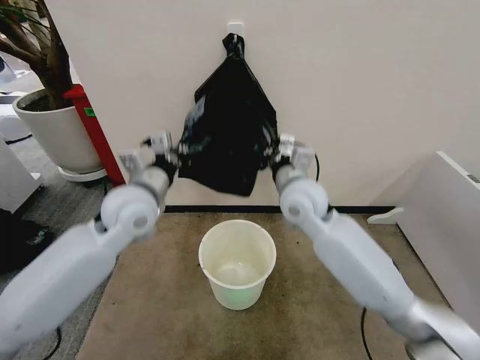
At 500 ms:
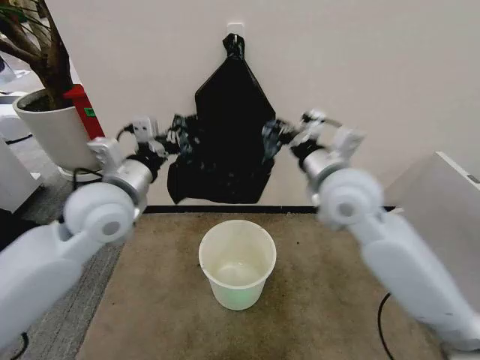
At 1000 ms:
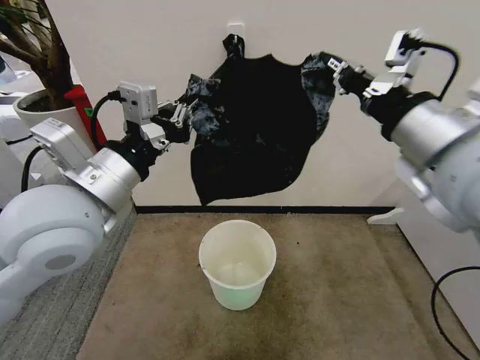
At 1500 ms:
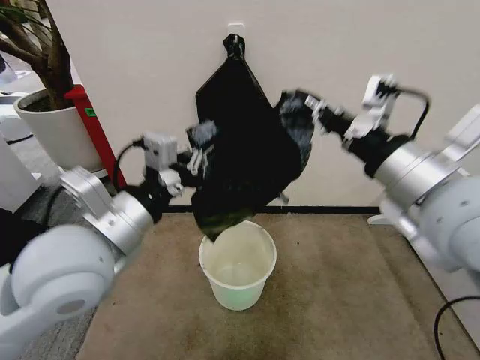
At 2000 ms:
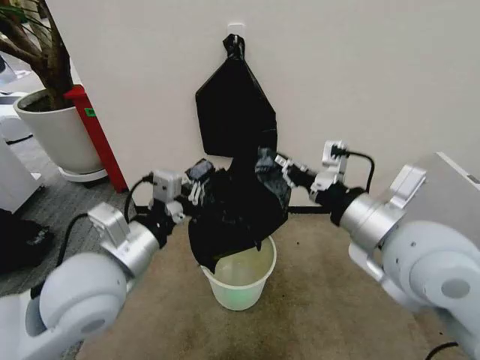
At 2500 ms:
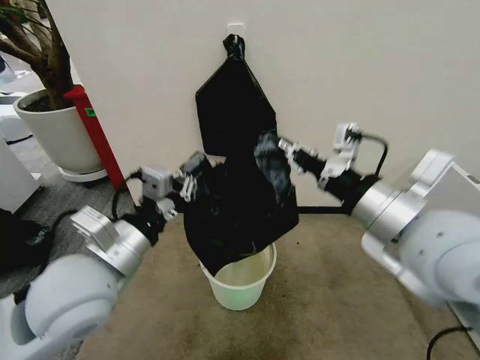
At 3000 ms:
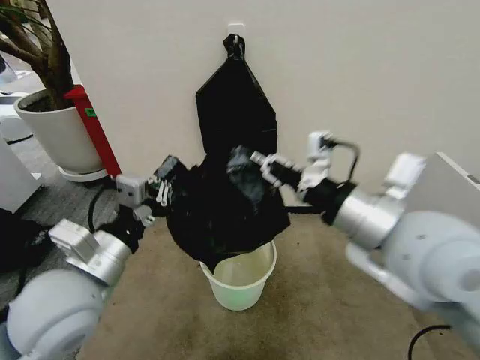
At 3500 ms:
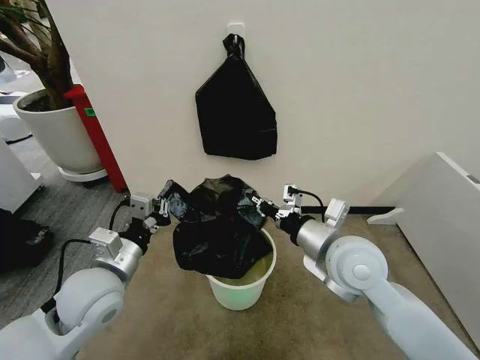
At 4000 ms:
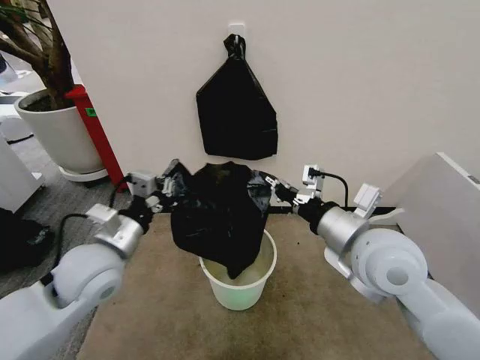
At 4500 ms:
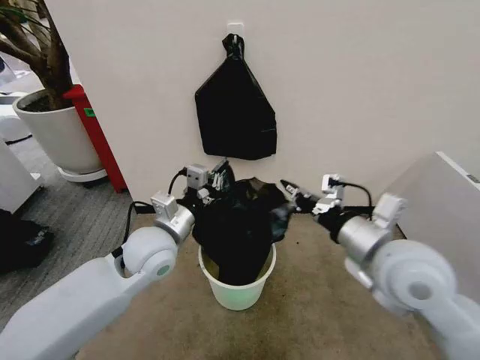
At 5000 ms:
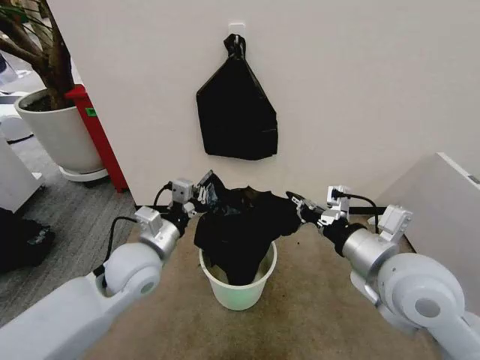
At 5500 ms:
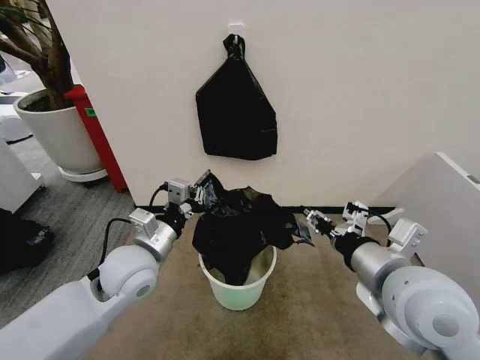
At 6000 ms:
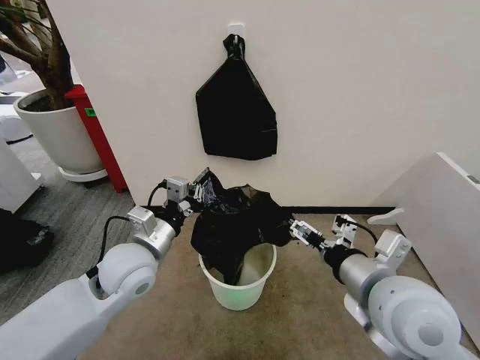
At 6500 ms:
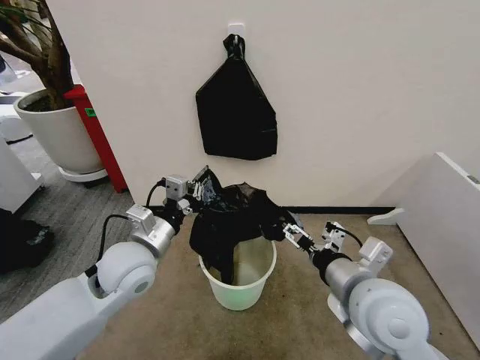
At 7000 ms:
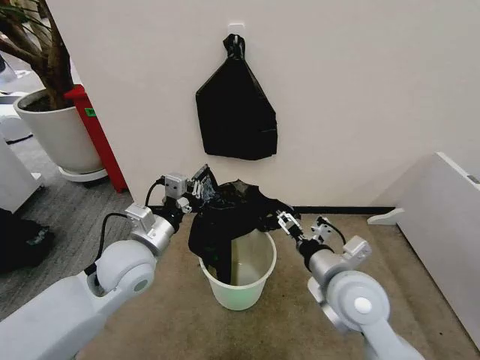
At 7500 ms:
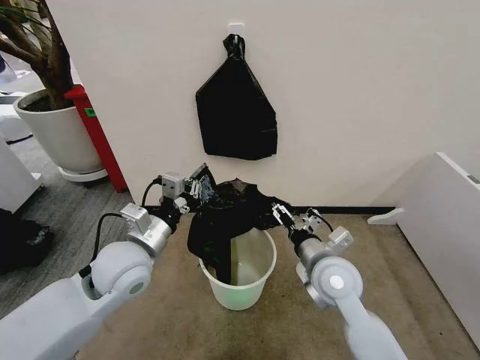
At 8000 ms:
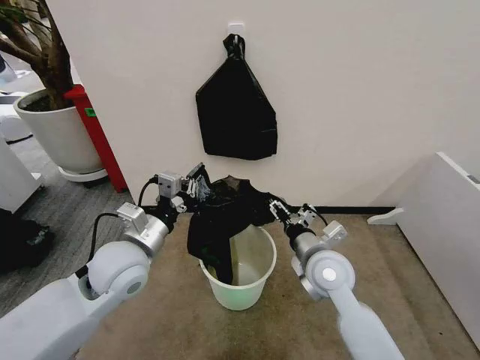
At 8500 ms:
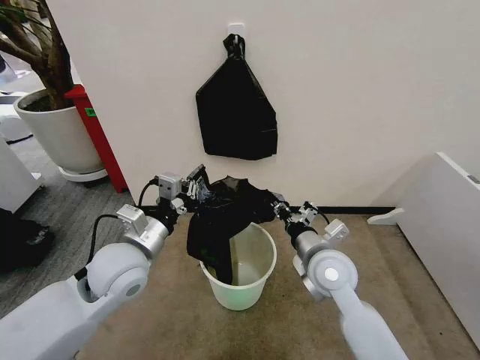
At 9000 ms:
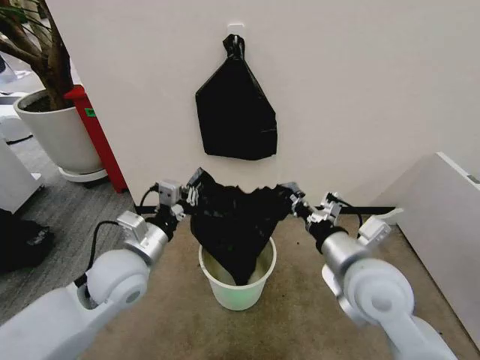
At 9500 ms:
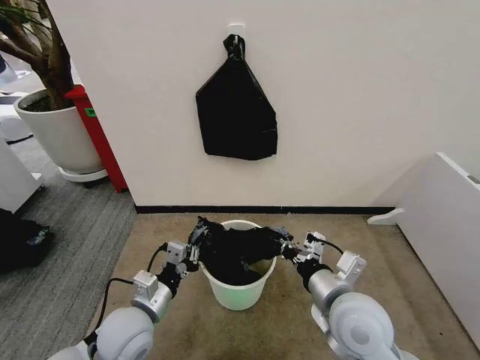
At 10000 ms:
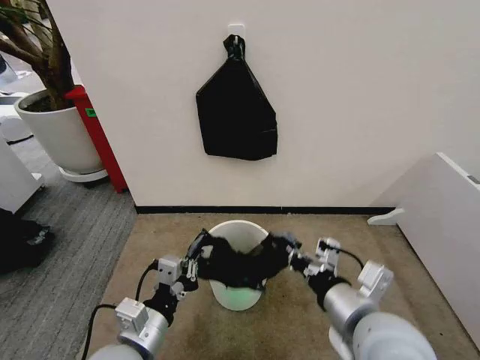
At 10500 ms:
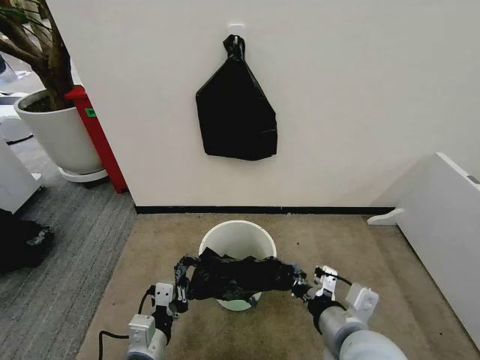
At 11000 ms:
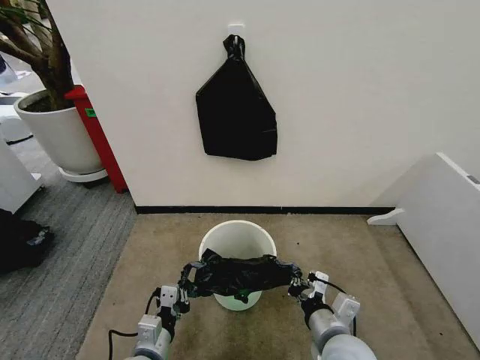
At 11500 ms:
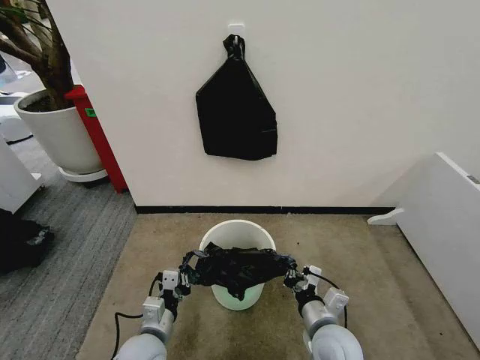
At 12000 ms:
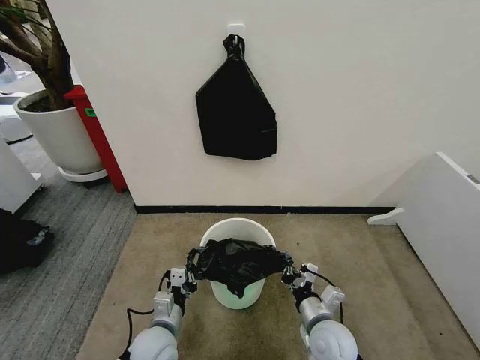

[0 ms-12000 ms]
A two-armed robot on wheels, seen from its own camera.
Task of the whole recording: Place the garbage bag over the trash bin.
0 ms to 2000 ms: The left gripper travels backward by about 15 cm. Meanwhile the right gripper moves backward, to the right and upward, roughly 25 cm.
2000 ms to 4000 ms: The right gripper travels downward by about 5 cm; the left gripper moves forward and downward, approximately 10 cm.
4000 ms to 6000 ms: The right gripper heads backward, covering some 5 cm, and opens its fingers.
6000 ms to 8000 ms: The right gripper heads downward and forward, covering approximately 15 cm.
8000 ms to 10000 ms: The right gripper shifts some 15 cm backward and upward, and closes up. Meanwhile the left gripper travels backward and downward by approximately 15 cm.
10000 ms to 12000 ms: The right gripper heads downward, covering approximately 20 cm, while the left gripper heads downward and forward, covering about 15 cm.

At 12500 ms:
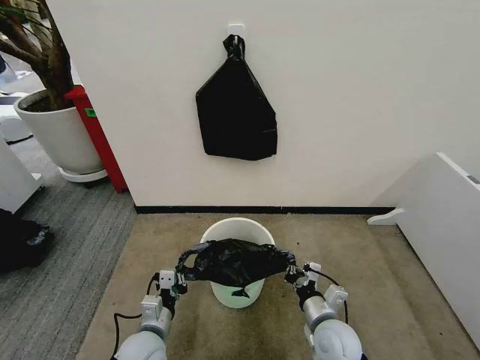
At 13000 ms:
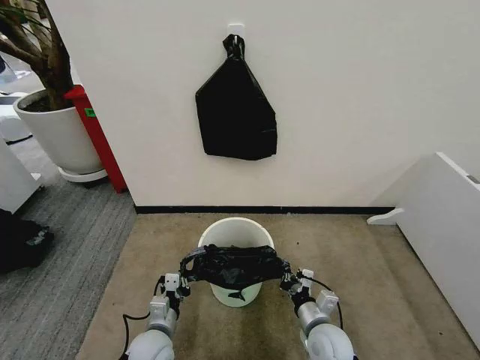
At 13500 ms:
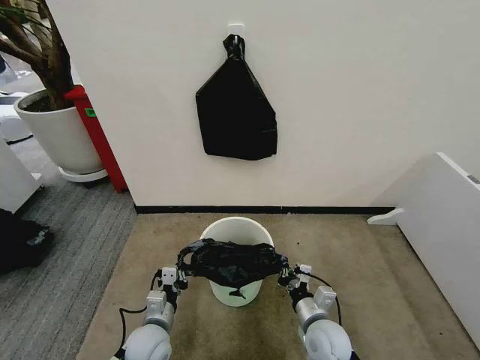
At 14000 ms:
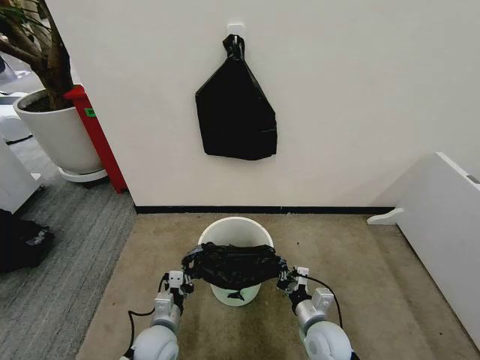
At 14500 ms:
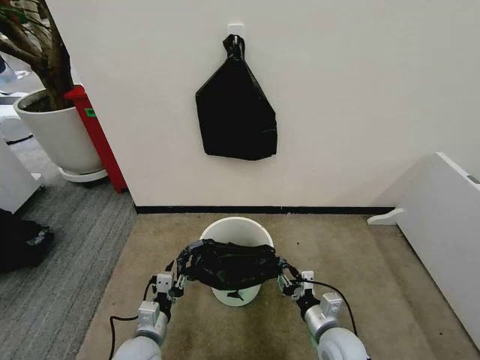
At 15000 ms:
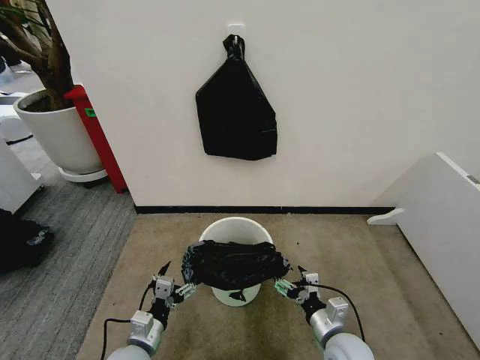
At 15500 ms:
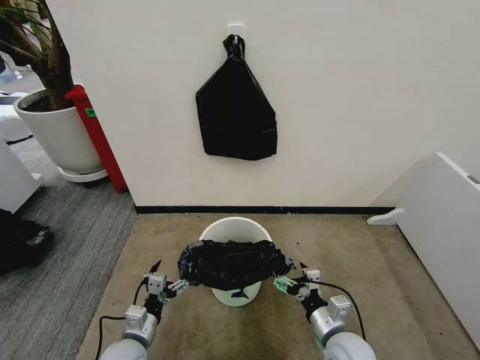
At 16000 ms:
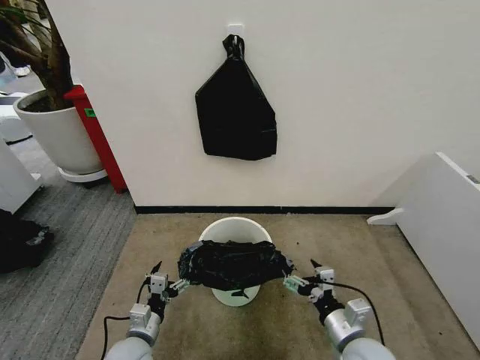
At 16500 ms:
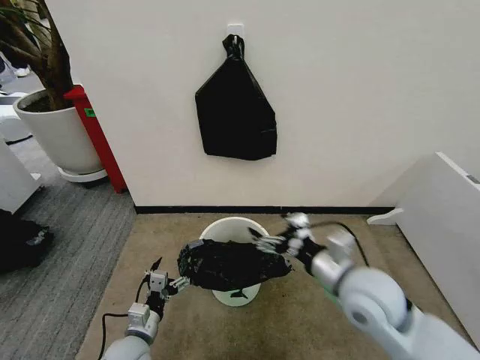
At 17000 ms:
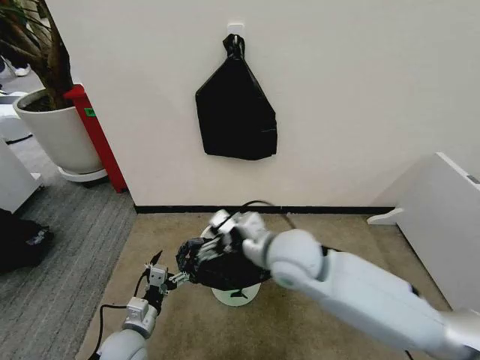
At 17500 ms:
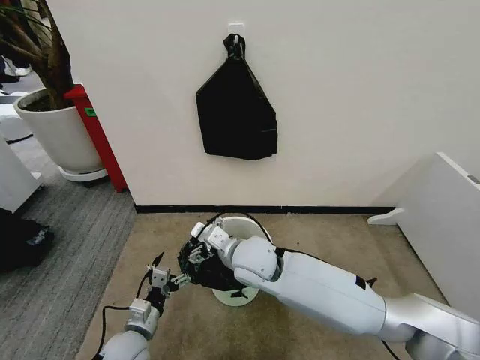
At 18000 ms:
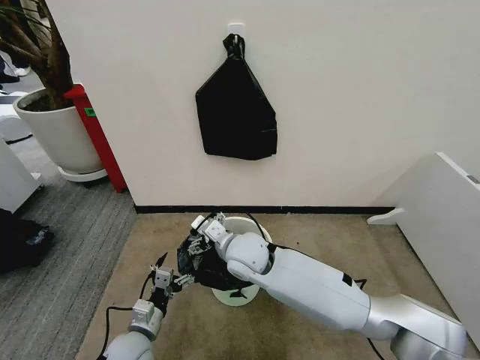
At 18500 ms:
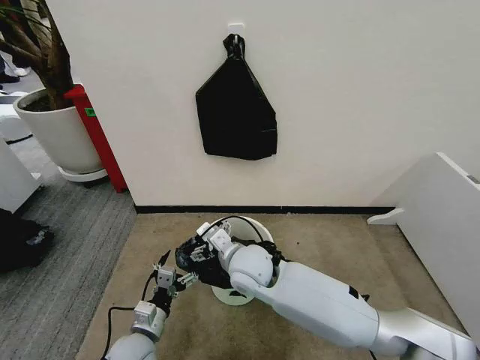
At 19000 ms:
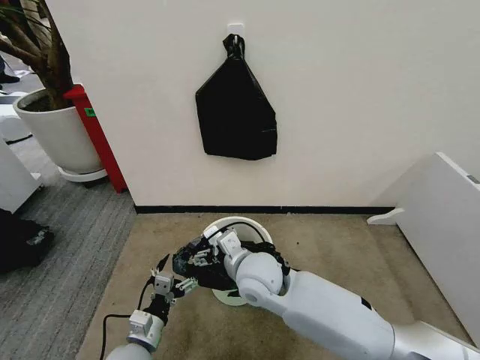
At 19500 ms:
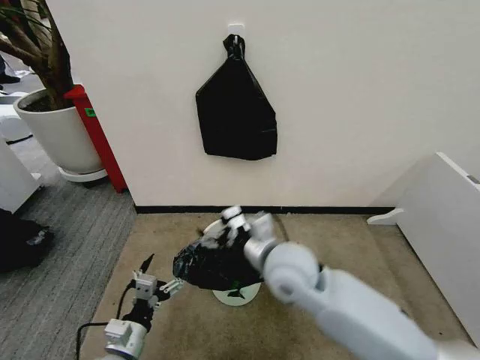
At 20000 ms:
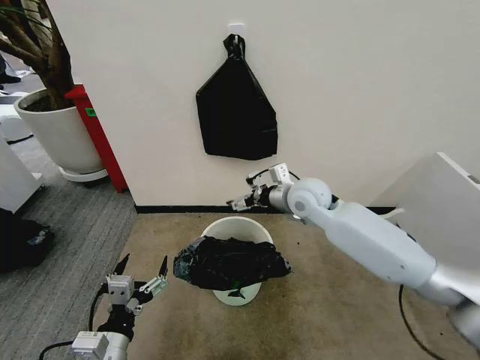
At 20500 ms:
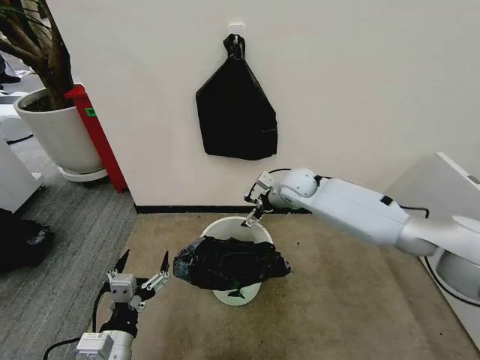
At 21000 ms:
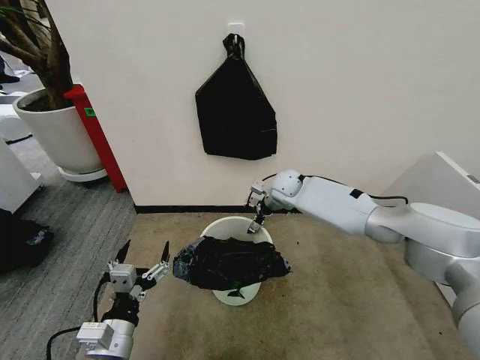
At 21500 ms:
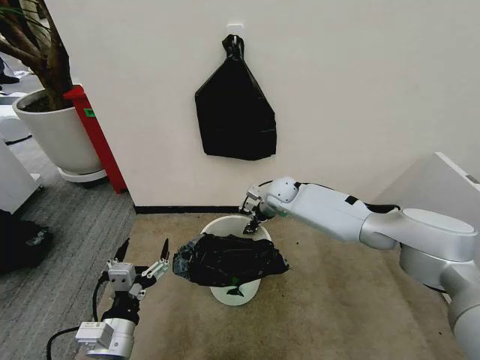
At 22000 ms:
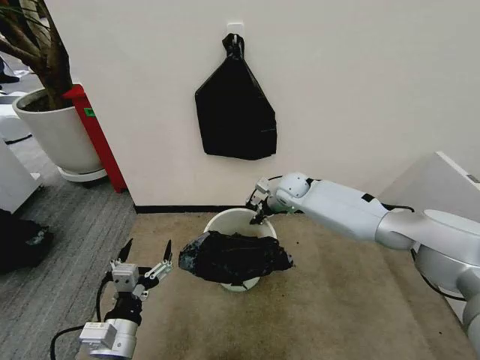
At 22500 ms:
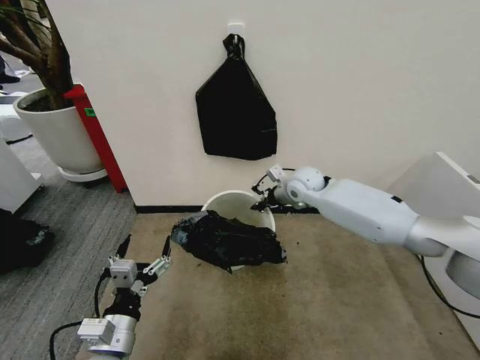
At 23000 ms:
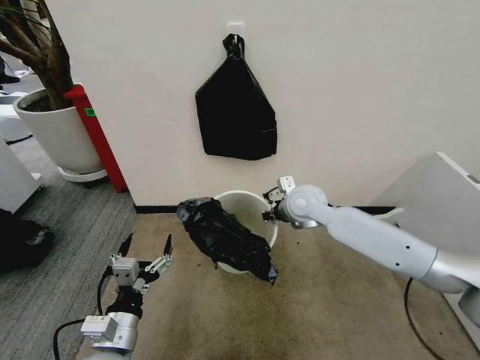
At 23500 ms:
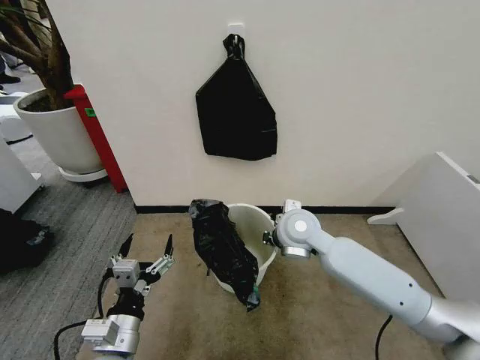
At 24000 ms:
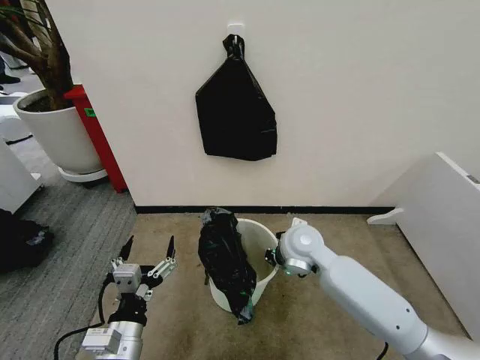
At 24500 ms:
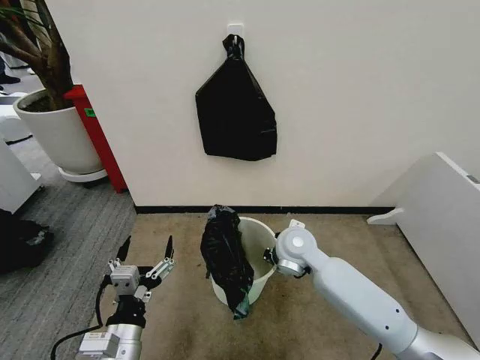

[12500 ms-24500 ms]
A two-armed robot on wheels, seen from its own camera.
Task of the whole recording: Place the garbage bag over the trash bin.
12500 ms to 14500 ms: The left gripper opens, while the right gripper opens up.
14500 ms to 16500 ms: The left gripper opens up. Meanwhile the right gripper is displaced upward by roughly 20 cm, and opens up.
16500 ms to 18500 ms: The right gripper goes roughly 20 cm to the left.
18500 ms to 20500 ms: The left gripper heads upward and backward, covering approximately 15 cm. Meanwhile the right gripper moves forward and to the right, roughly 25 cm.
20500 ms to 22500 ms: The right gripper closes up.
22500 ms to 24500 ms: The right gripper is displaced backward by some 15 cm.

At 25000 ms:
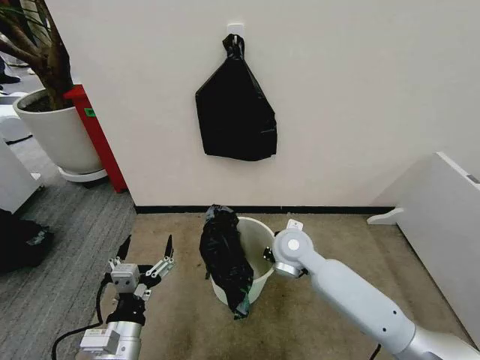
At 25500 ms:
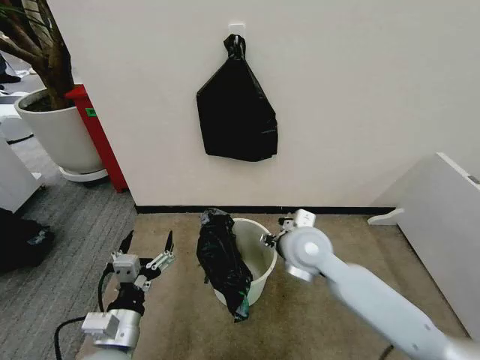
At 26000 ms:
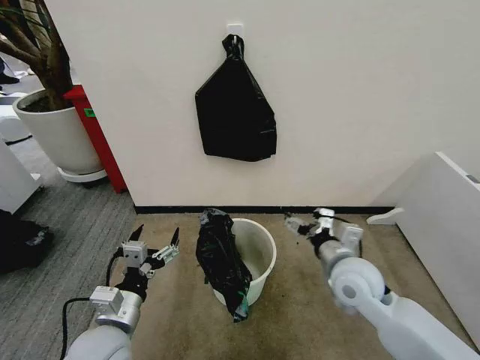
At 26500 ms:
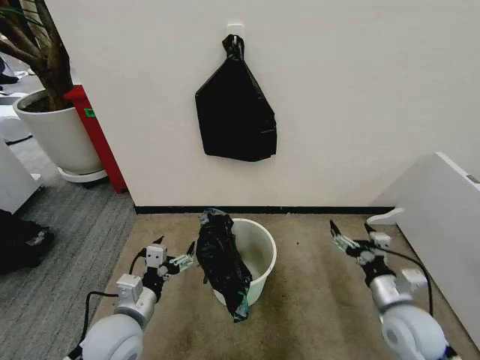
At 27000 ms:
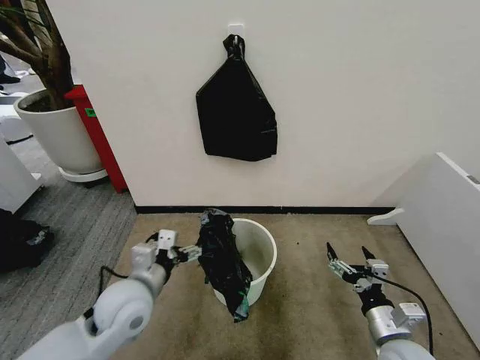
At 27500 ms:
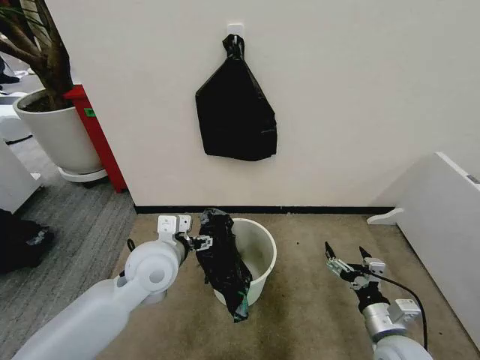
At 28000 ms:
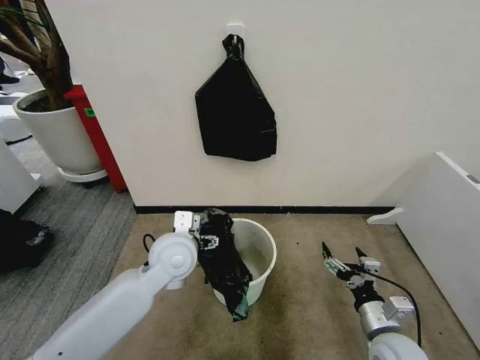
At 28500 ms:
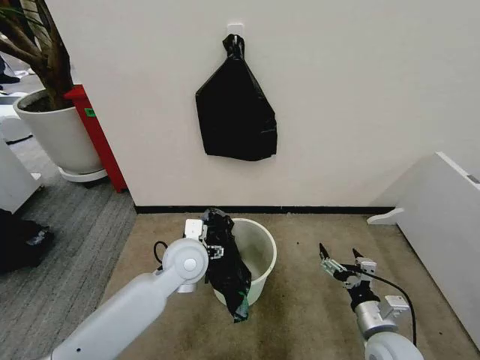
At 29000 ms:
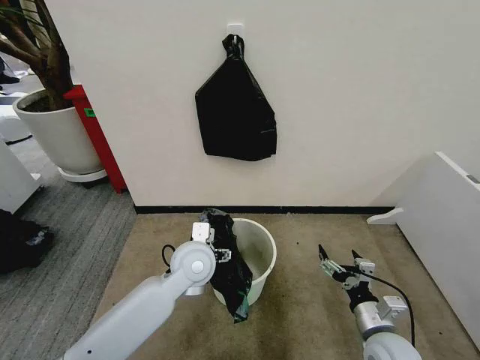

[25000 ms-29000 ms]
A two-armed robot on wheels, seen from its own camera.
Task of the whole recording: Place the garbage bag over the trash bin.
25000 ms to 27000 ms: The left gripper shifts about 10 cm forward; the right gripper travels backward, to the right and downward by roughly 30 cm, and opens its fingers.
27000 ms to 29000 ms: The left gripper heads to the right and forward, covering some 15 cm.
